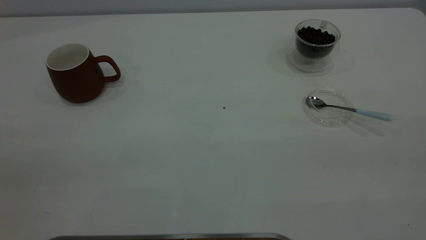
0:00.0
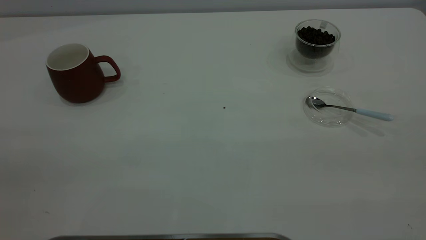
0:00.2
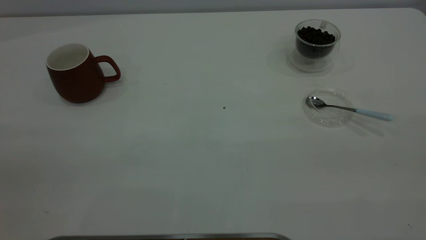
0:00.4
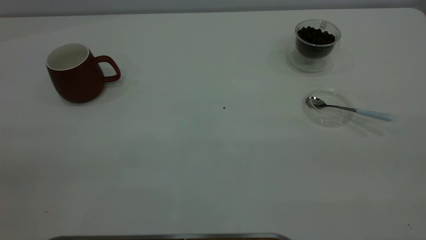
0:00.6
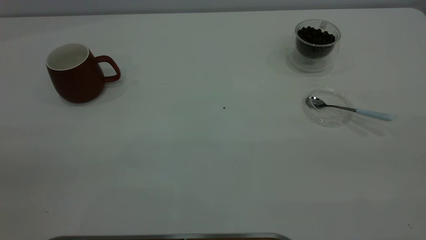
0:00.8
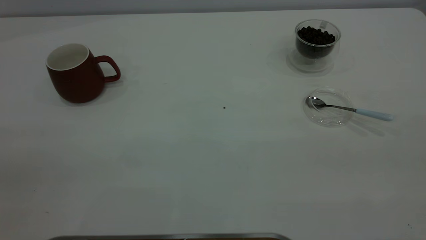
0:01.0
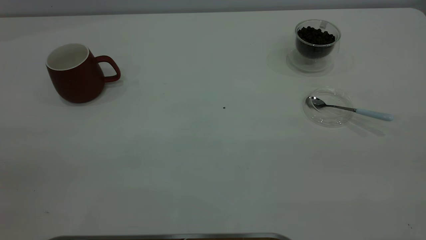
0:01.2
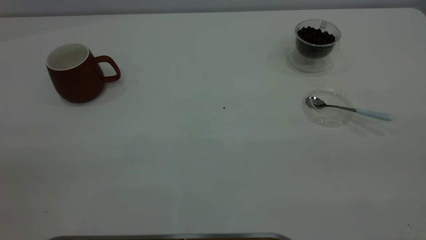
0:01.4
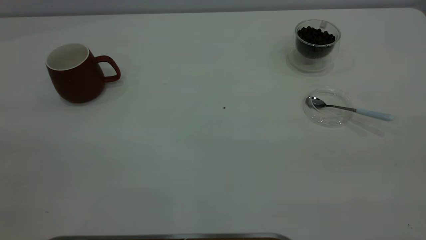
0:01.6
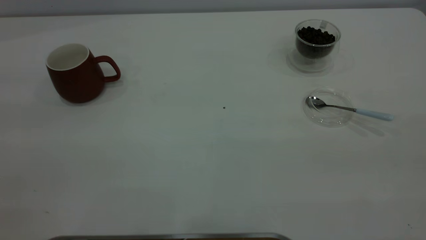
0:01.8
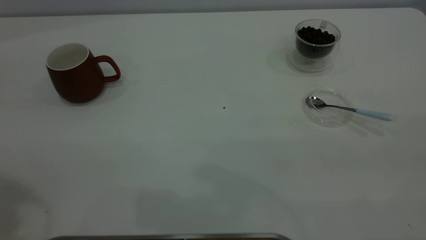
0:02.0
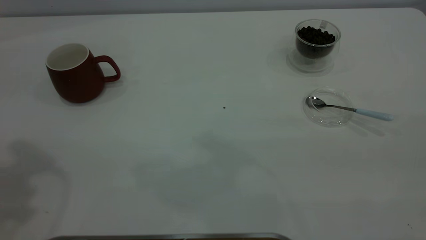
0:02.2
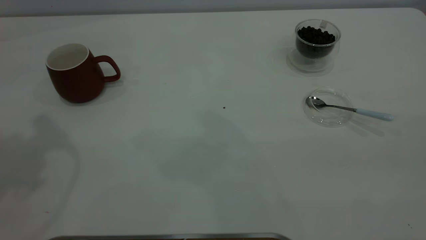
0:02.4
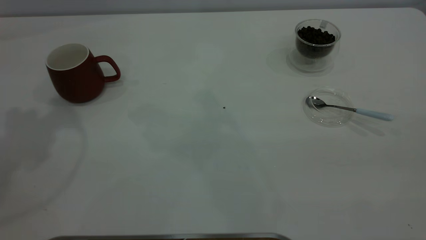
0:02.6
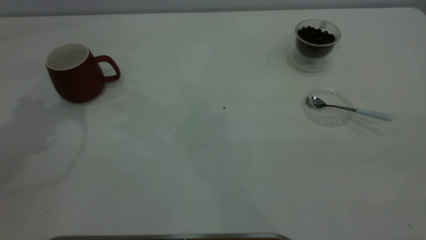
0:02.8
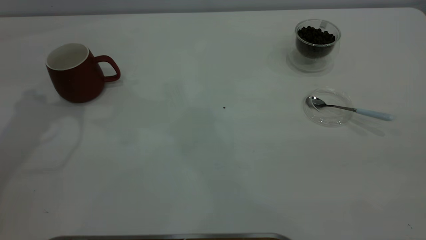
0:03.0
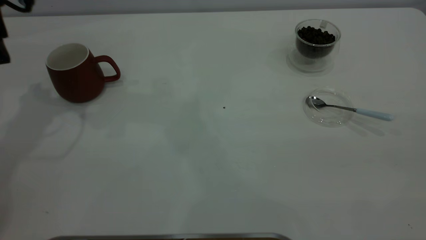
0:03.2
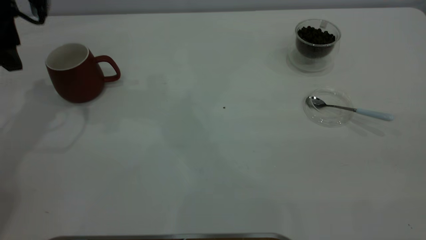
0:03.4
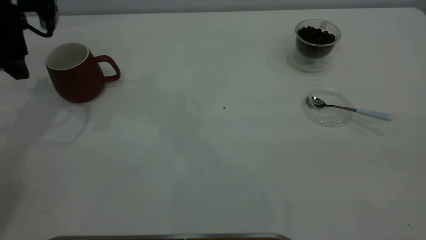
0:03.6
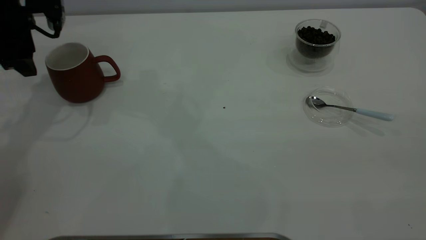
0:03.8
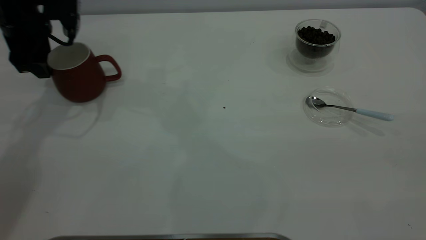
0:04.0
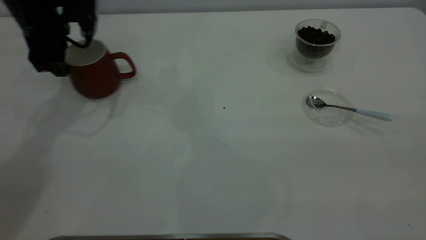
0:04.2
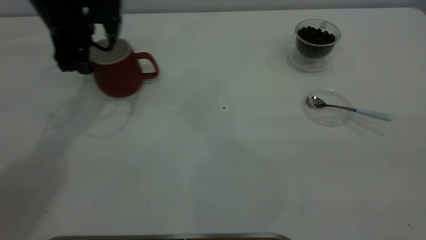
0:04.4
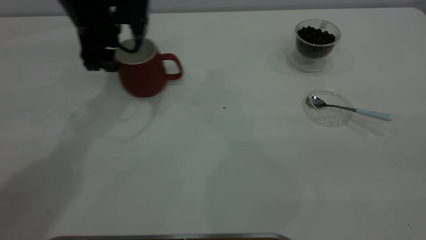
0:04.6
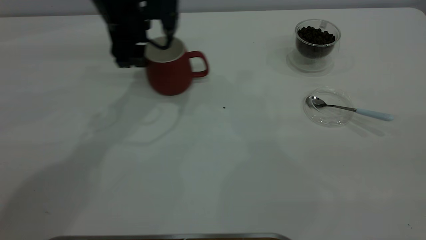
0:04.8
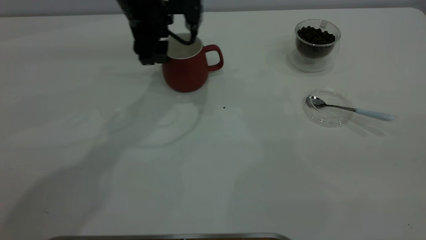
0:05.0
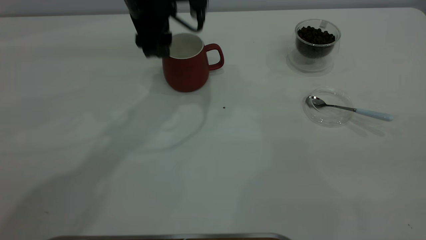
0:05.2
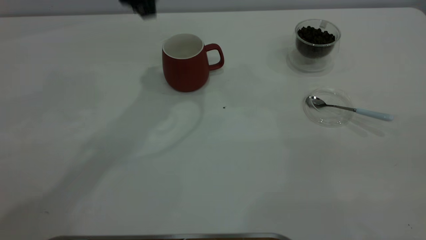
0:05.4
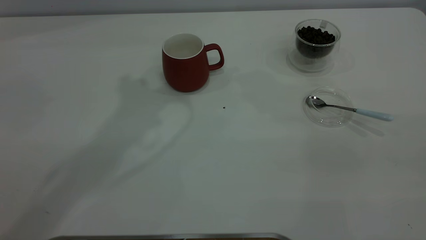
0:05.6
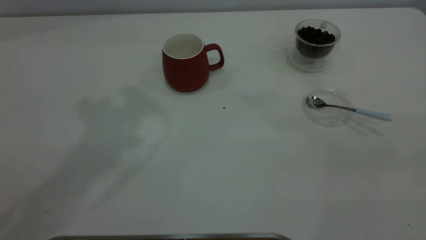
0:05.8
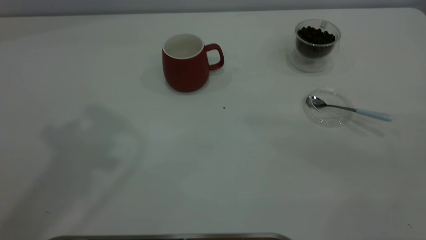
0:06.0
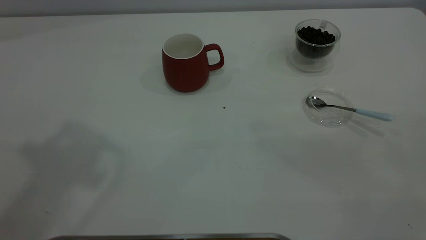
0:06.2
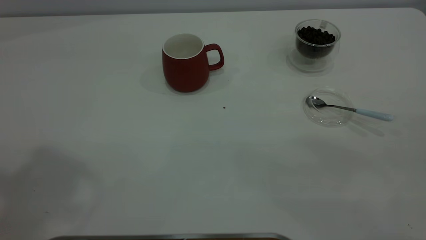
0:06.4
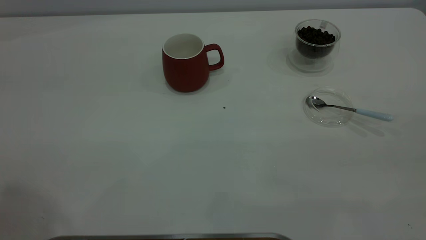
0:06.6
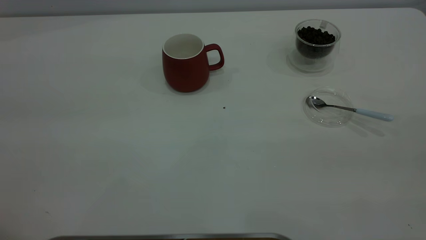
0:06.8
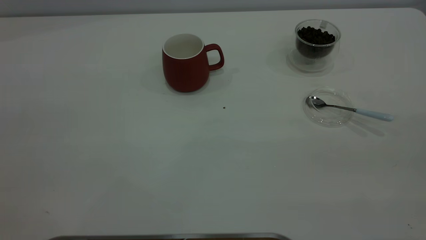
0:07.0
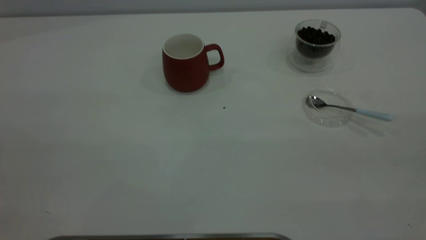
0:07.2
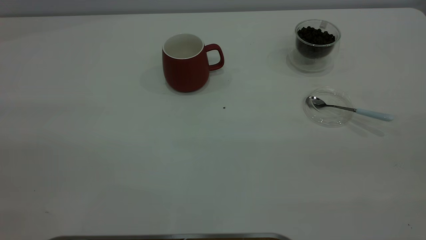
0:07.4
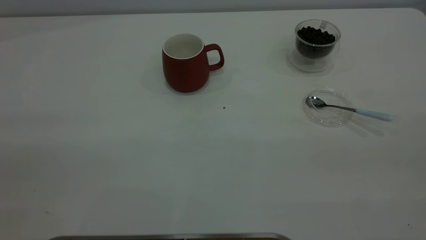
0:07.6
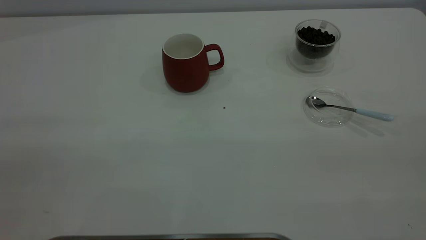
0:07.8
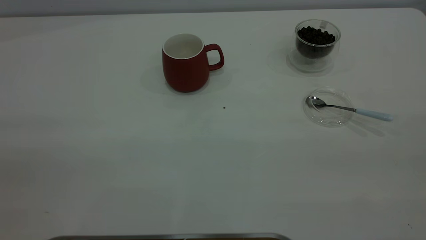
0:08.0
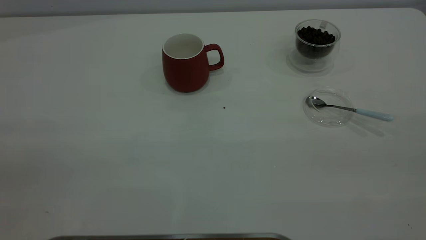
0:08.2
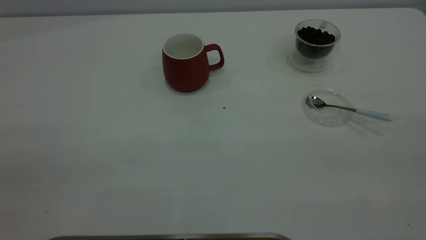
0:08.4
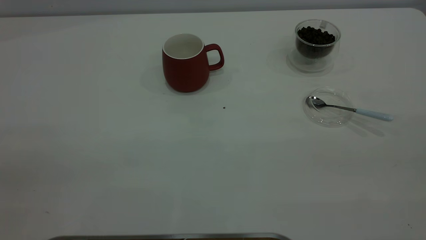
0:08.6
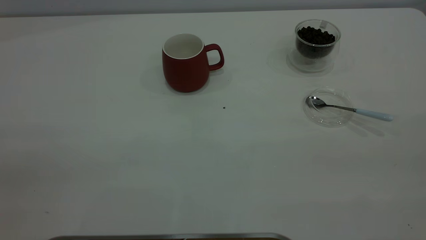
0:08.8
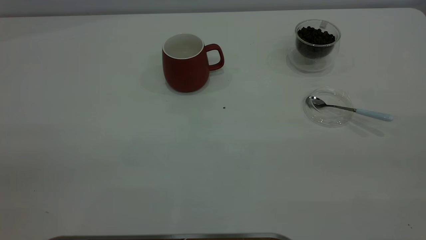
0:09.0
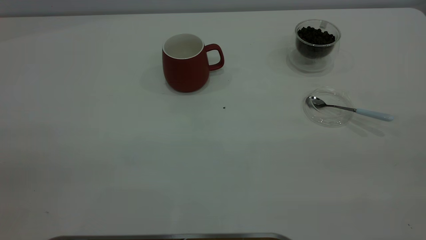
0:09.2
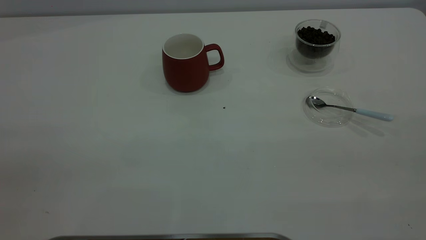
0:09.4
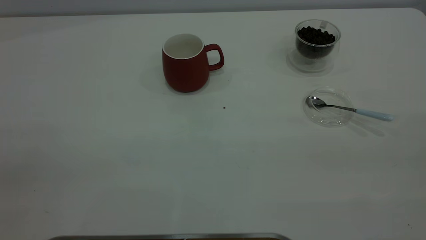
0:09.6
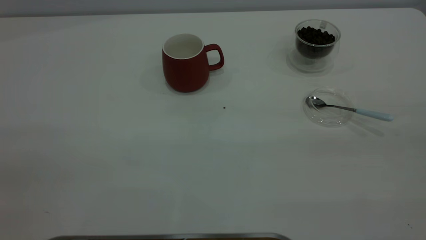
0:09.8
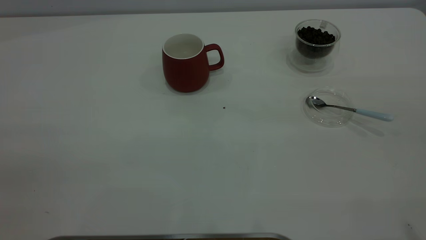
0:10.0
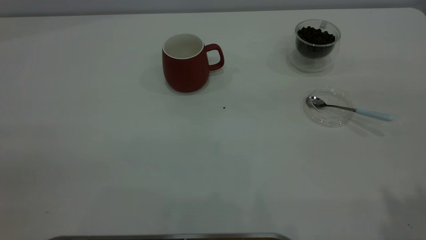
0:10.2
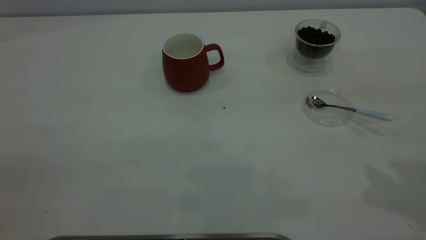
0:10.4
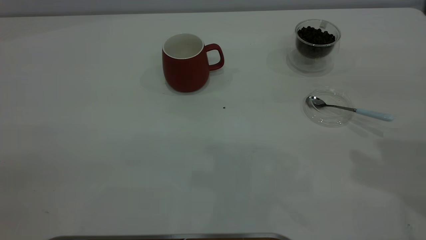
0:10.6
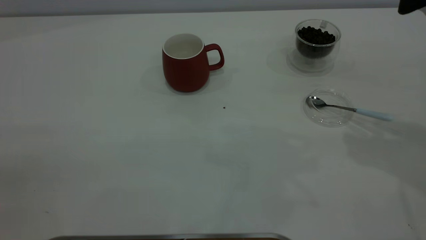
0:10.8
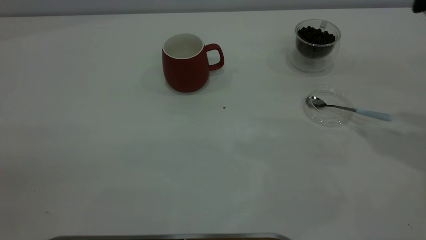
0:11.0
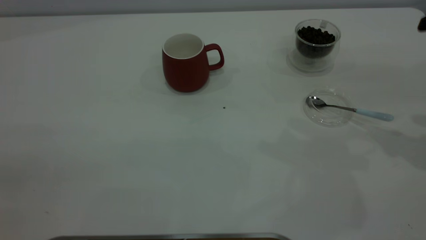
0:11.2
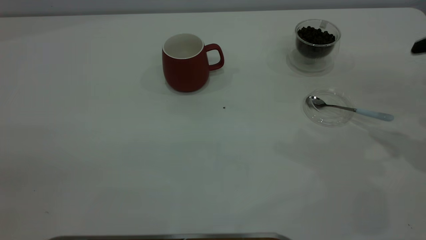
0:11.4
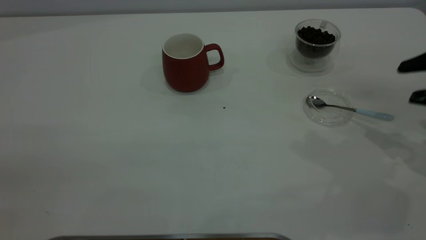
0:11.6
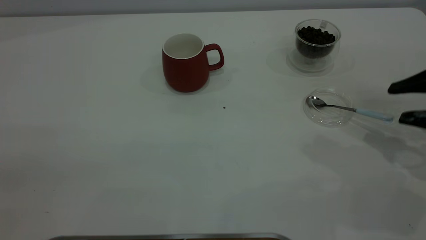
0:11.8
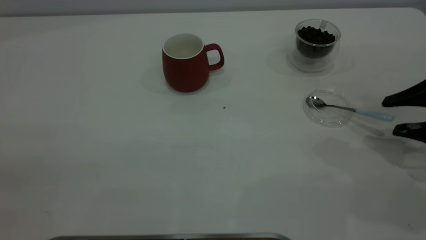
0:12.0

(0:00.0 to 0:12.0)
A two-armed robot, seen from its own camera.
Task of the whole recording: the left gripper place the red cup in the center of the table, the right gripper take the blue spoon from the cup lid and scoop out the coffee beans from the coffee cup and put them into the red cup, the right gripper put the spoon back into the cup lid.
Step, 0:00.0 - 0:05.2: Move the cup to the center of view.
0:03.0 - 0:04.4: The left gripper moves downward, to the right and forward, about 15 cm.
0:04.4 - 0:06.0: The left gripper is displaced upward and backward by some 40 cm.
0:10.4 - 0:12.0: The right gripper is displaced downward by some 25 cm.

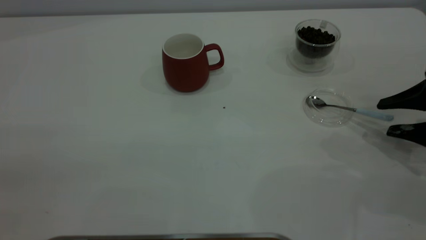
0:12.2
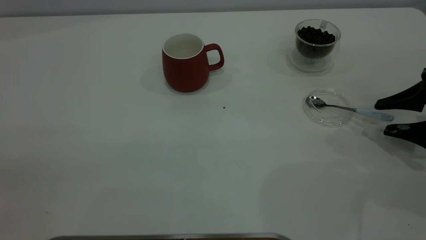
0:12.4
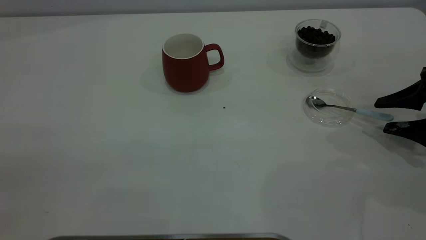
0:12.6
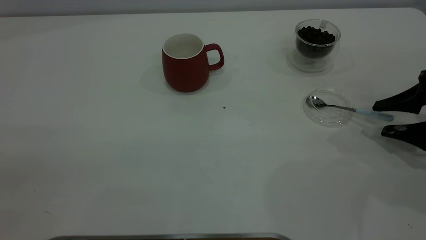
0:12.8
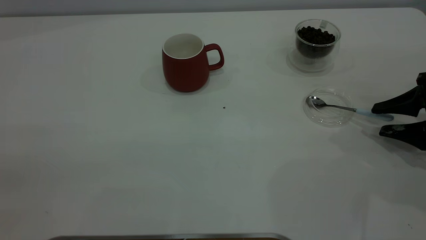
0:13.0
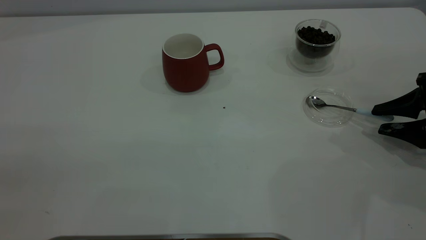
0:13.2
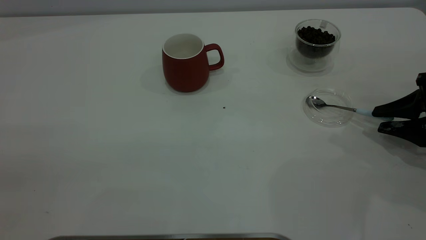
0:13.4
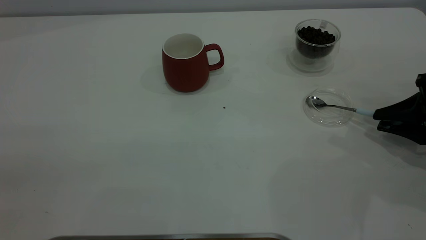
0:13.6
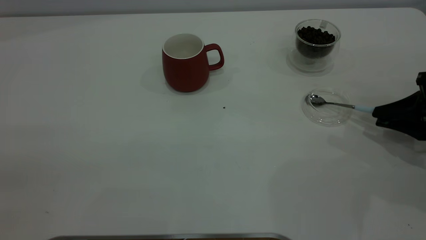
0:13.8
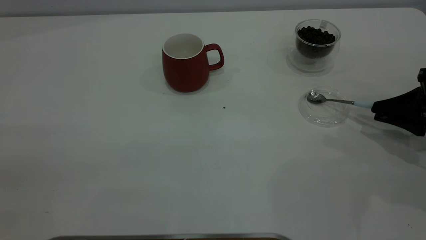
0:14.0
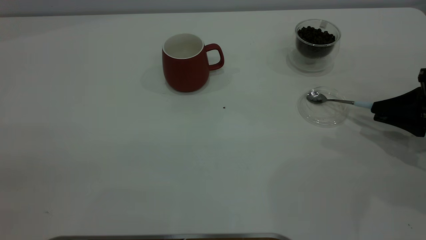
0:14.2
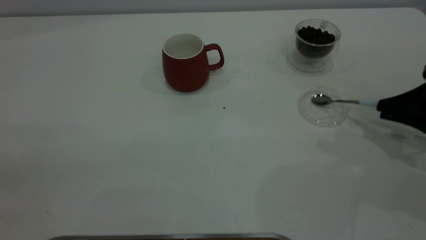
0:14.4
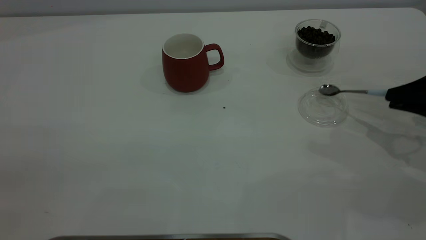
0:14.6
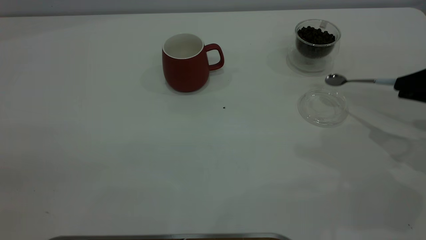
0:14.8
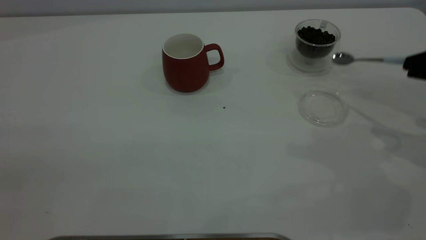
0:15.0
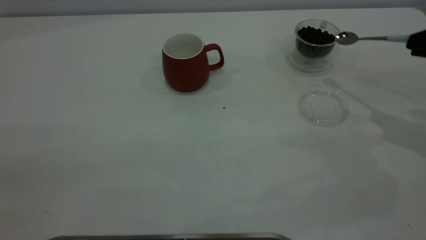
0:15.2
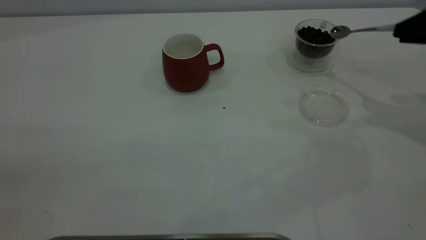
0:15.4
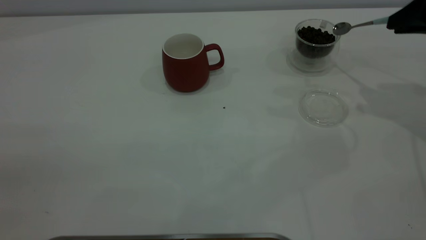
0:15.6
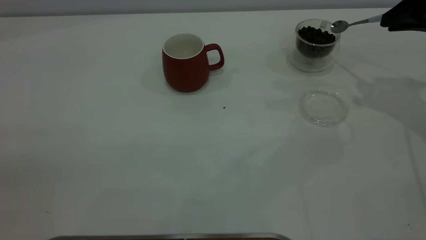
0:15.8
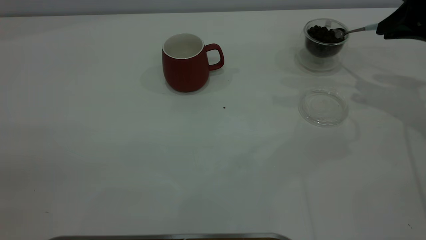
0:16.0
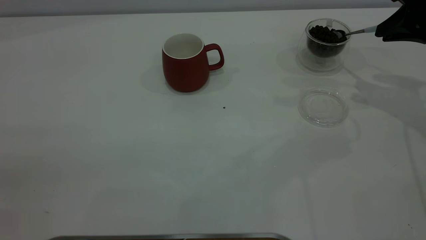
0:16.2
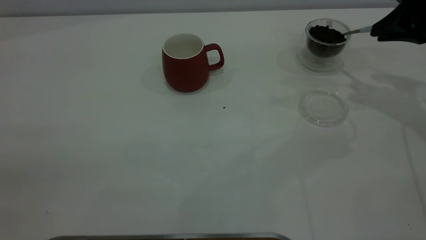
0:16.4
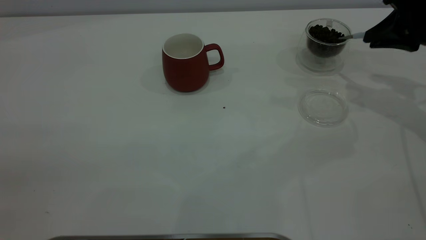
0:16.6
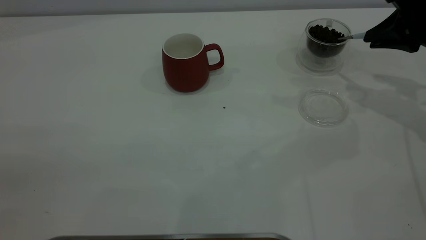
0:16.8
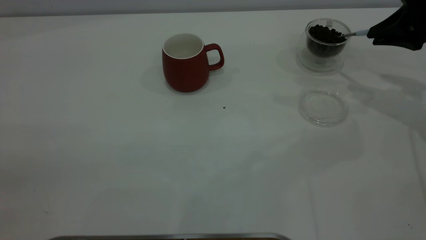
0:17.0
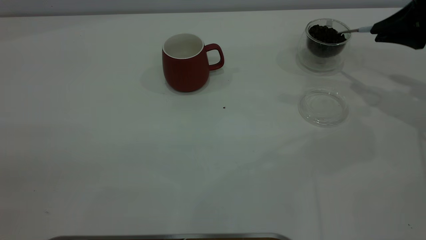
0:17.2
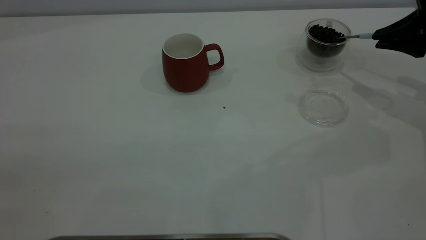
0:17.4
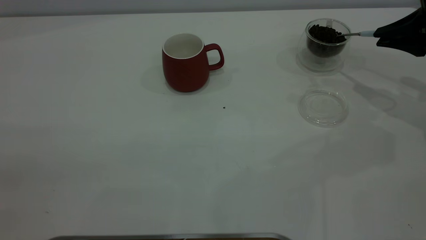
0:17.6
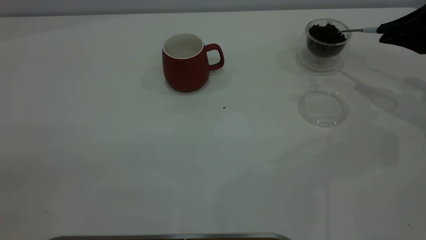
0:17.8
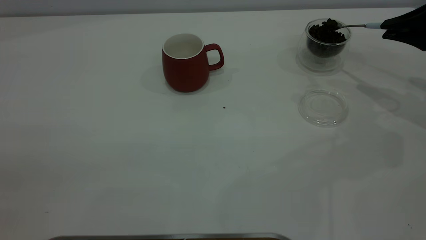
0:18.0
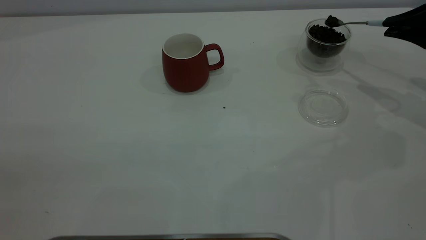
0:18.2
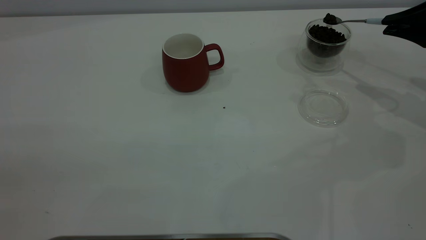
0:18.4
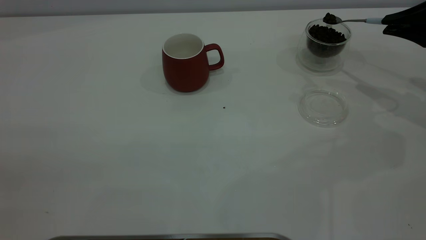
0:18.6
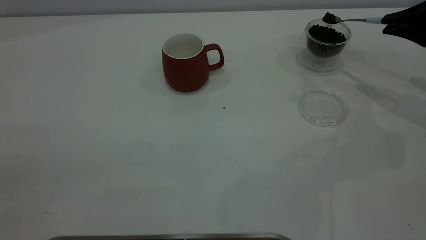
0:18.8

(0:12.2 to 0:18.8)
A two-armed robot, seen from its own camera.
Task of the whole recording: the left gripper place the red cup in the center of the table, the right gripper take the blue spoon from the cup lid and scoop out the coffee beans from the coffee cup and put them into the red cup, the right gripper put the spoon back into the cup lid.
Step, 0:12.2 - 0:14.6: Pick up the spoon.
0:12.2 - 0:13.8: The right gripper closes its fingers.
0:13.8 - 0:15.4: The right gripper travels upward and forward by approximately 15 cm.
0:15.4 - 0:17.2: The right gripper moves approximately 5 cm.
0:17.2 - 0:18.8: The grippers stay close to where they were, moving slightly.
